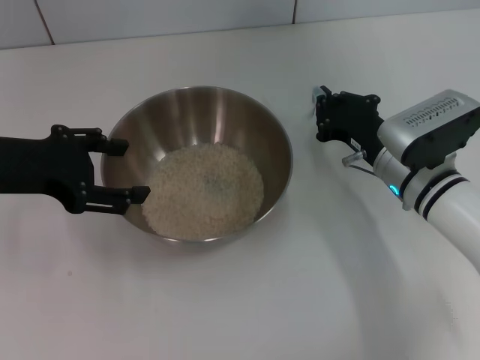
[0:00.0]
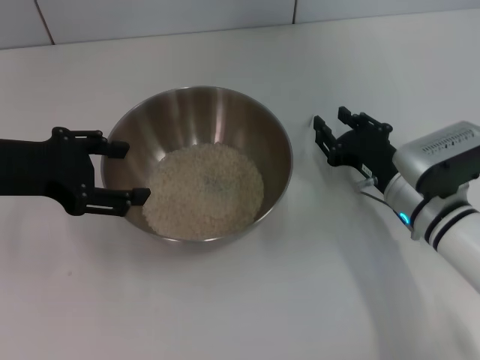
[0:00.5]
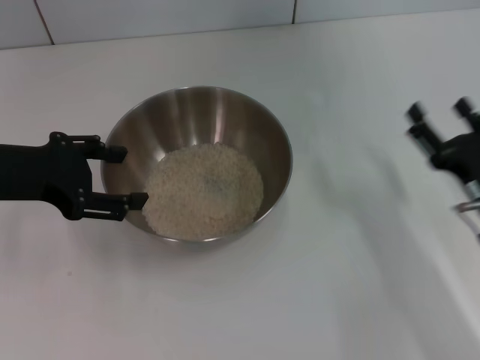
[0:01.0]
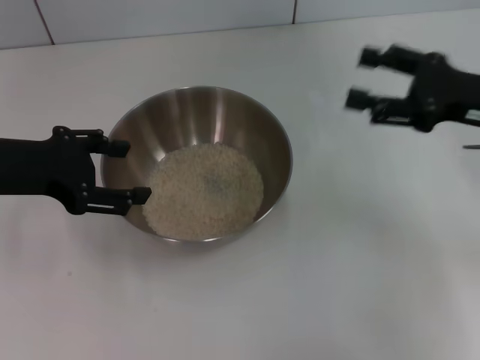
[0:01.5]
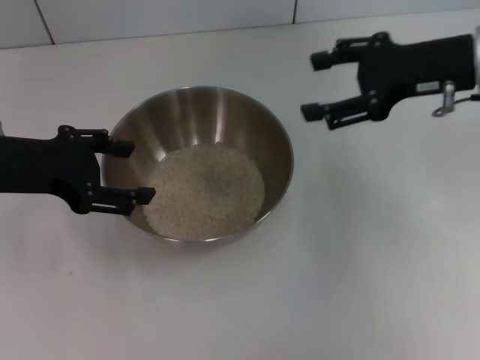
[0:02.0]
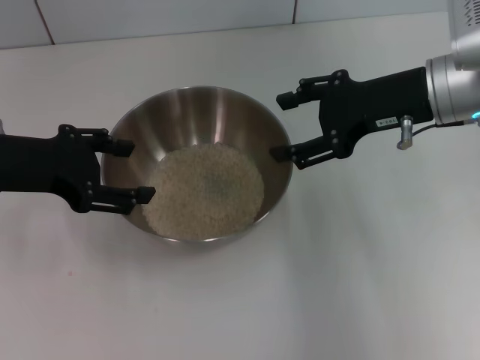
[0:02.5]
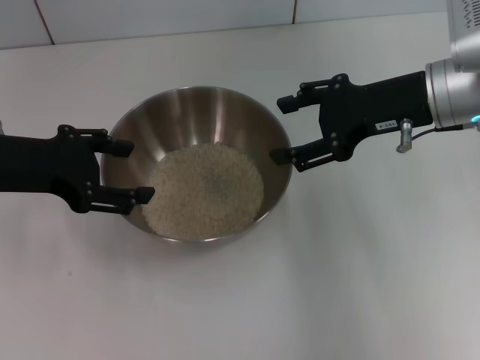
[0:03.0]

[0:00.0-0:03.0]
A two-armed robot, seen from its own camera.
Task of the whole recording: Place the bowl in the middle of the table with one hand and pour the rice from the grain cup into it with the other hand.
Step, 0:00.0 to 0:01.0: Place the cup on the table with the right gripper.
0:00.0 to 0:01.5: The right gripper travels upward and to the right by about 15 cm, and opens.
0:01.5 to 0:03.0: The right gripper moves to the left, roughly 10 cm.

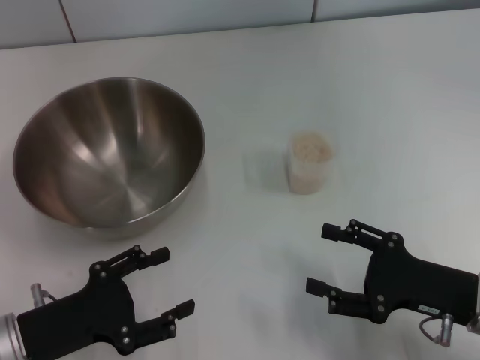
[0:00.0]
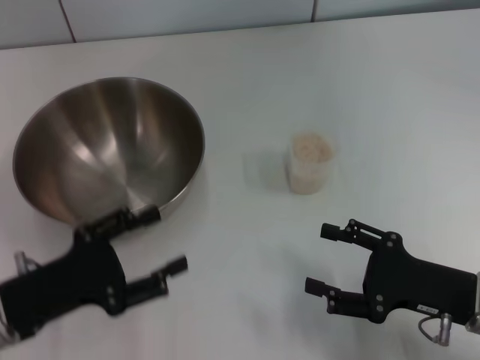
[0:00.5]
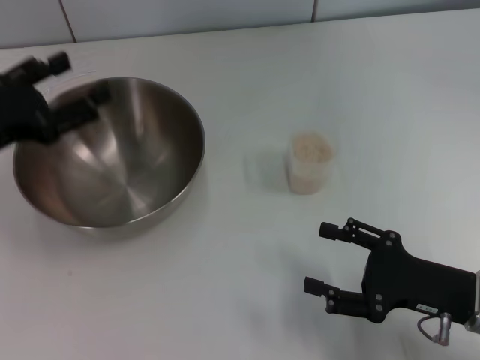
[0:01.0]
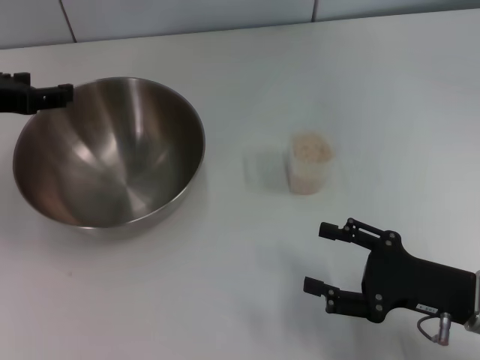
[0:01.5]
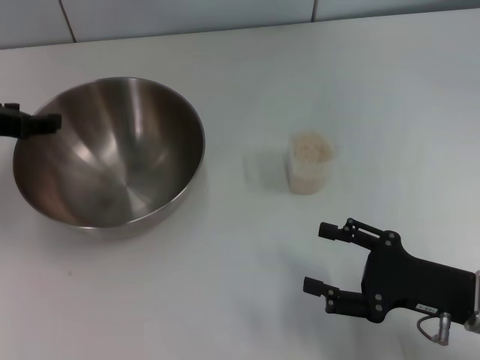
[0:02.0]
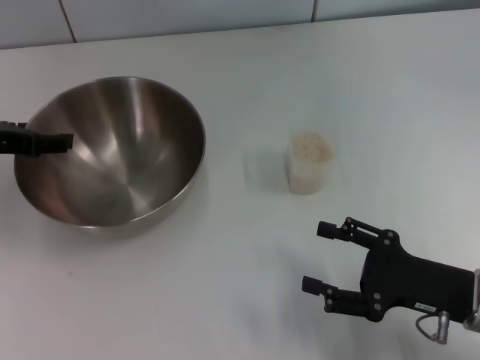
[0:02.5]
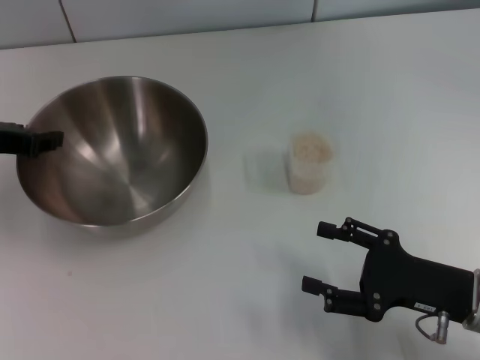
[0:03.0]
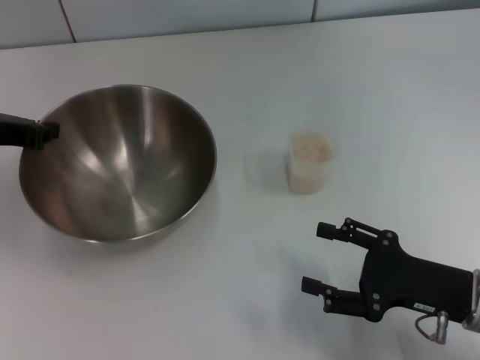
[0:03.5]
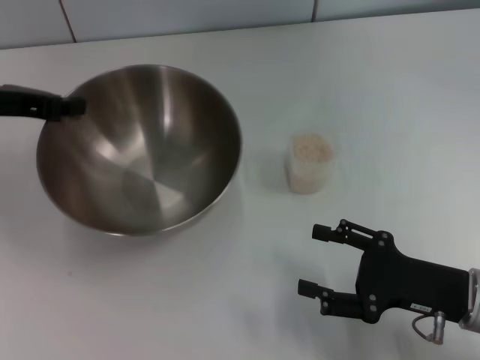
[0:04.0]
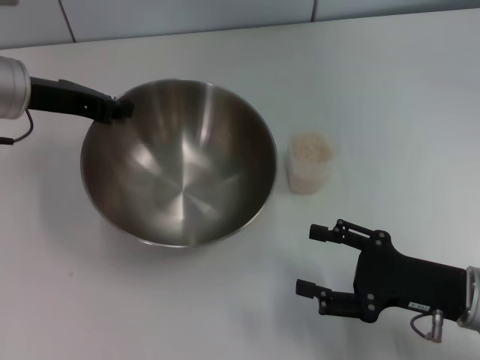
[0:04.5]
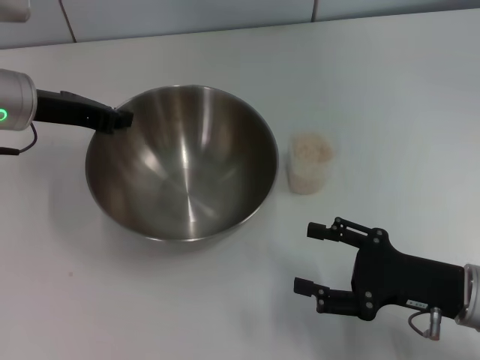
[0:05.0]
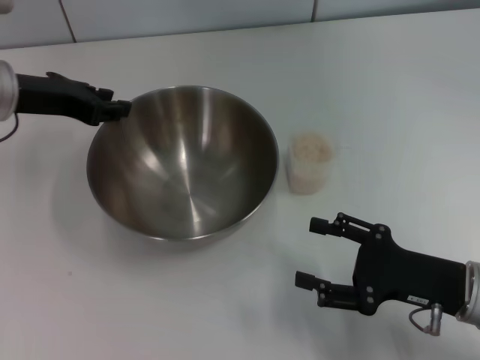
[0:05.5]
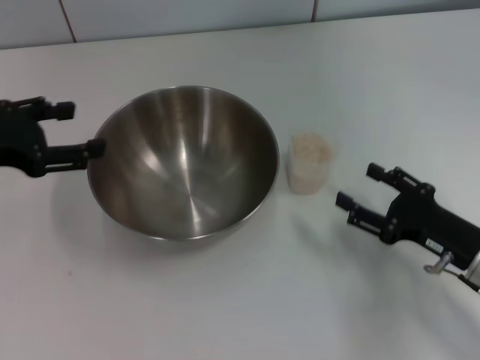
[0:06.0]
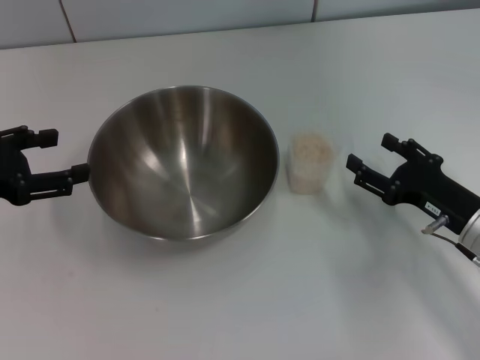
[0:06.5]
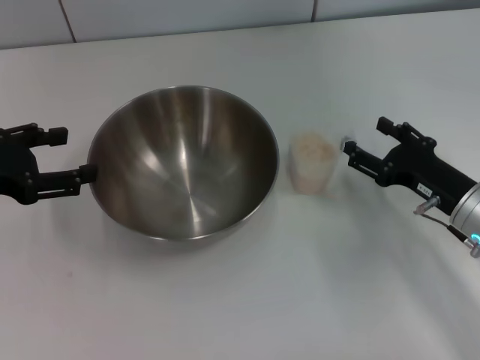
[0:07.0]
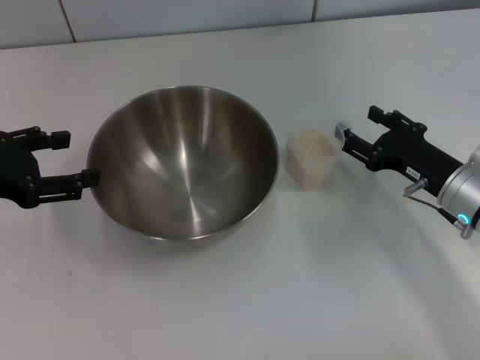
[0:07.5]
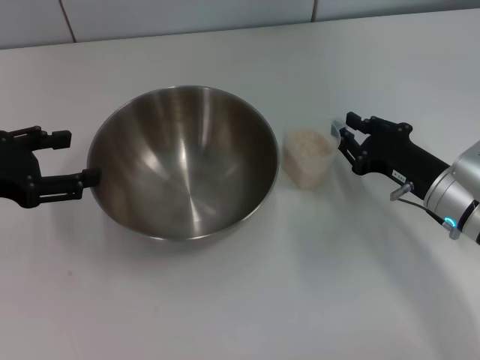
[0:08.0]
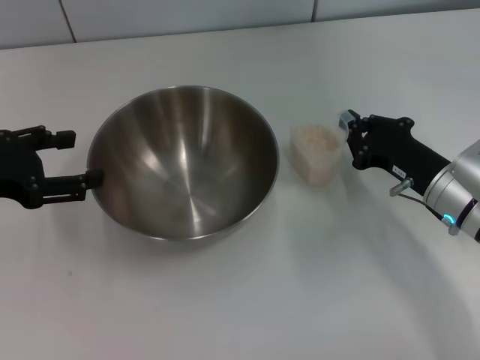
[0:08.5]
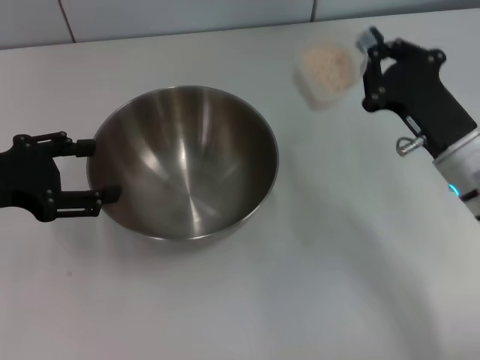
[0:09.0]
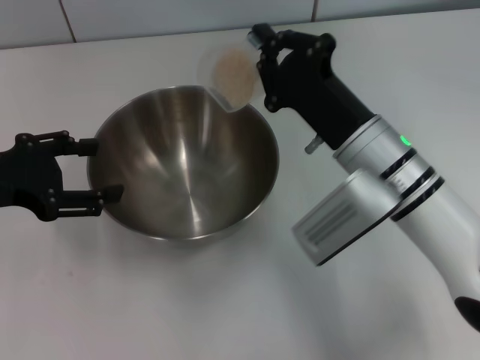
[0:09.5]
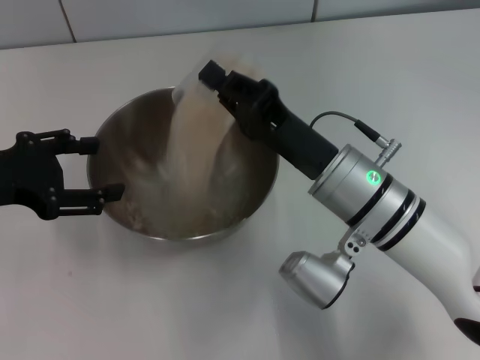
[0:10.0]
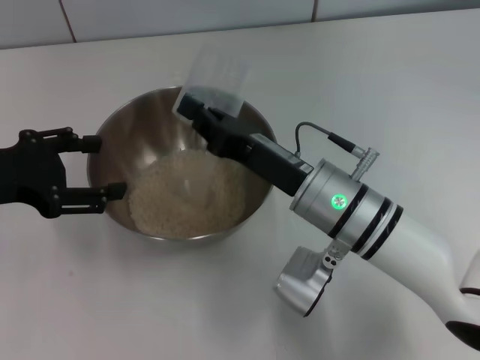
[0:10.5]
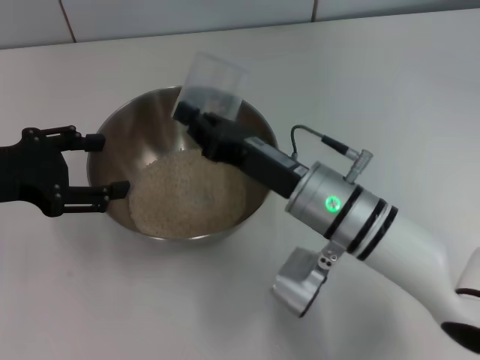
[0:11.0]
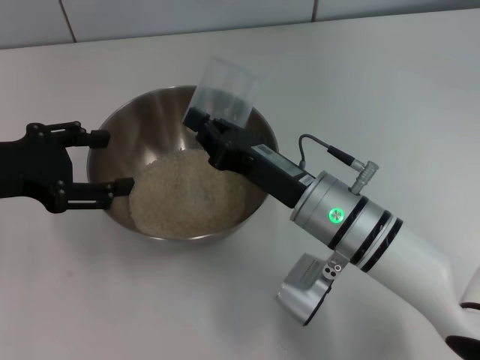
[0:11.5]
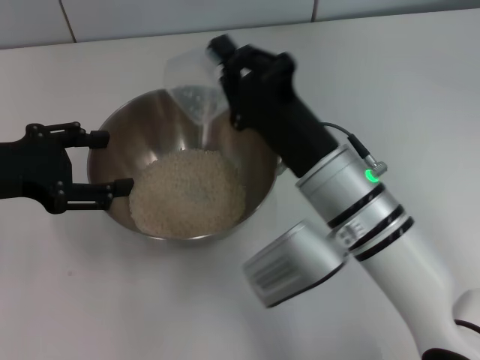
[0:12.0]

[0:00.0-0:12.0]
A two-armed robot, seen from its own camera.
Task of the whole recording: Place the bowl in the middle of the table with one hand and pour the rice from the grain cup into it with the other hand.
Step, 0:00.0 to 0:03.5: Pick up the bowl with the left gripper.
Step, 0:04.0 to 0:05.5: Place the bowl in the center of view with the left gripper.
Step, 0:06.0 to 0:08.5: Pick up the cup with rice in it with the right gripper.
0:00.0 to 0:02.0: The left gripper moves forward and upward, some 20 cm.
0:02.0 to 0:04.0: The left gripper closes up.
0:04.0 to 0:06.0: The left gripper goes some 5 cm backward, and opens.
0:06.0 to 0:08.0: The right gripper heads forward, covering about 10 cm, and closes its fingers.
0:08.0 to 0:10.0: The right gripper goes about 15 cm to the left and upward, and closes.

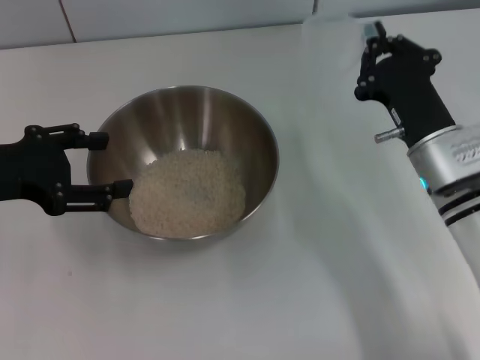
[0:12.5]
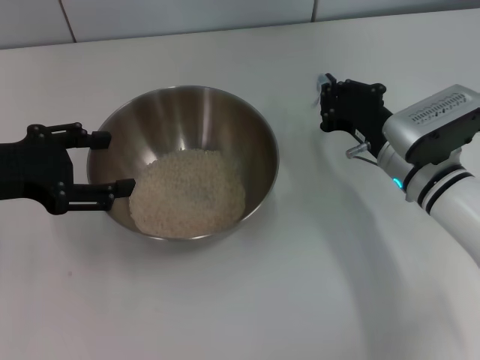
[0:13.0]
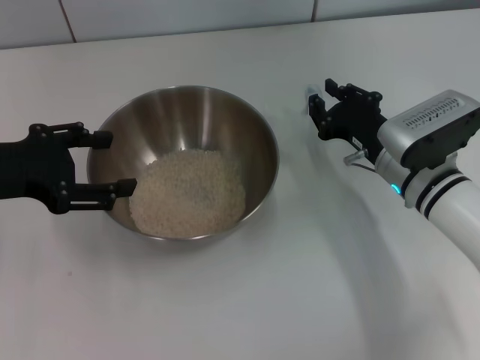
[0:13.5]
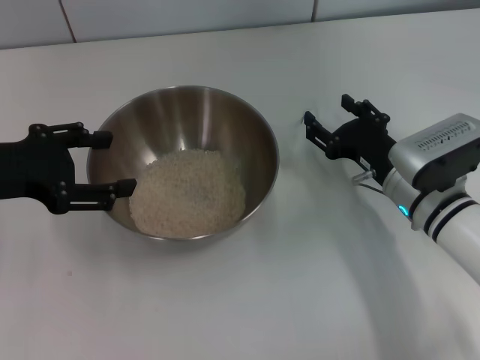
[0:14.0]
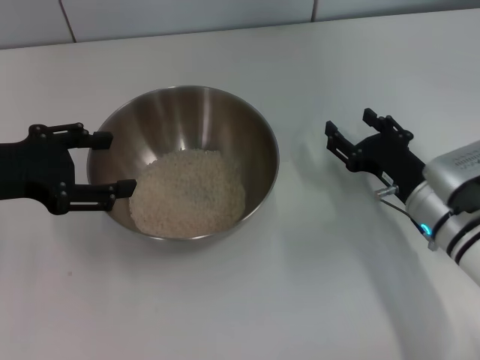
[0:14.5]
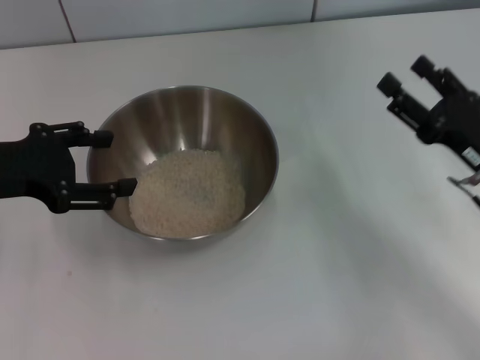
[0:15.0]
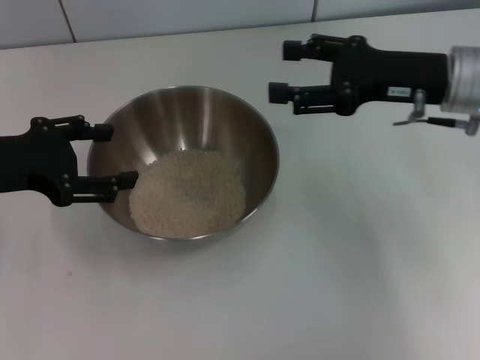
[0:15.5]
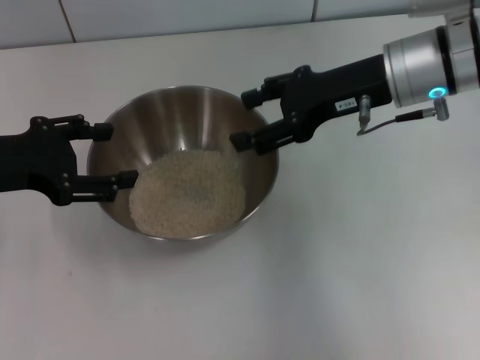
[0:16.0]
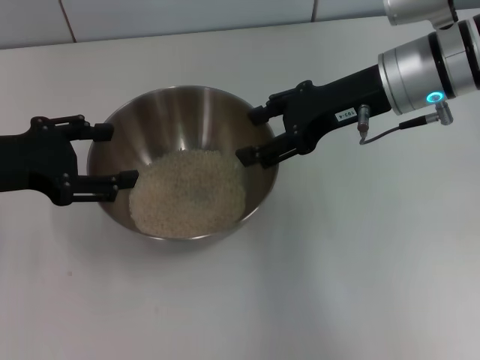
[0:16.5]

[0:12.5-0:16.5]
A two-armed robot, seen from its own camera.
Task of the whole recording: Place the bowl in the middle of the table with one hand and pour the rice from the grain cup into it with the other hand.
Step, 0:13.0 to 0:14.5: Place the cup on the table with the right gripper.
0:12.5 to 0:14.5: The right gripper changes place by roughly 5 cm, and opens its fingers.
0:14.5 to 0:16.5: The right gripper travels upward and forward by approximately 20 cm.
